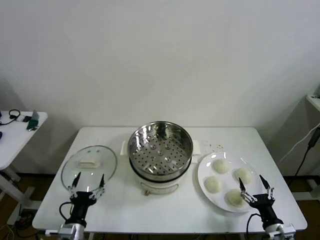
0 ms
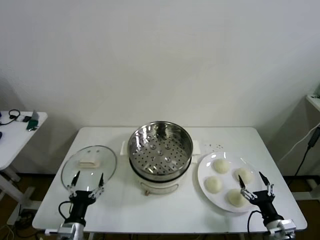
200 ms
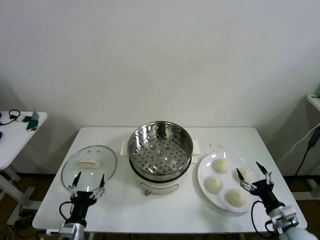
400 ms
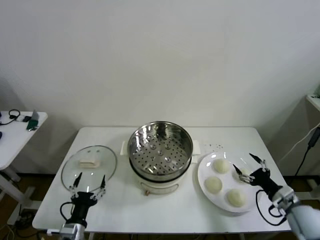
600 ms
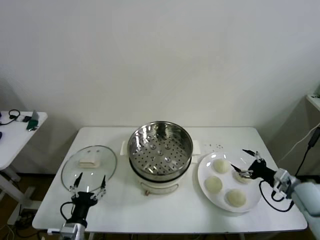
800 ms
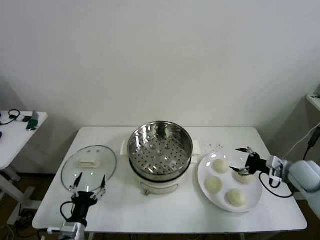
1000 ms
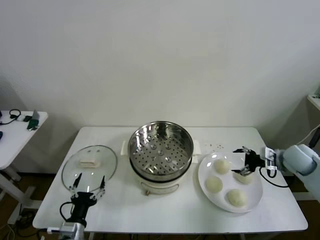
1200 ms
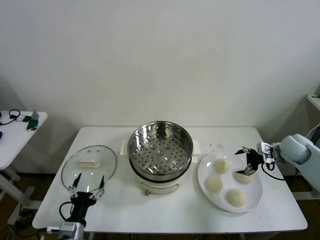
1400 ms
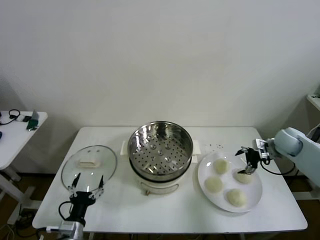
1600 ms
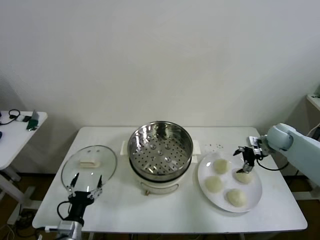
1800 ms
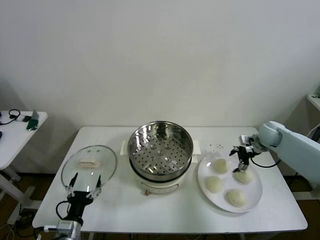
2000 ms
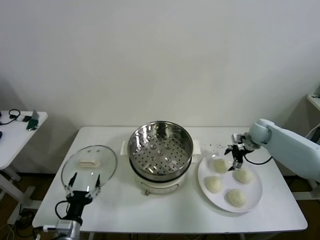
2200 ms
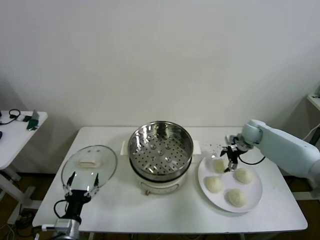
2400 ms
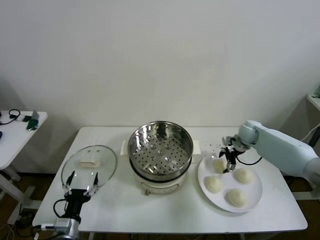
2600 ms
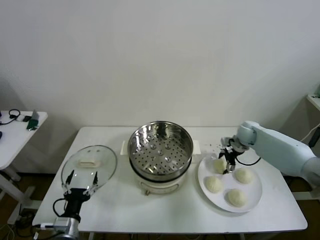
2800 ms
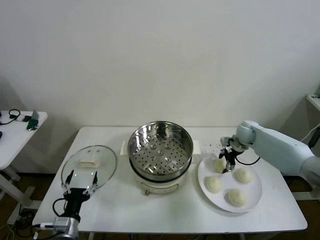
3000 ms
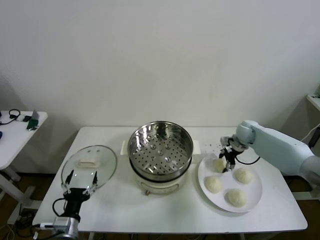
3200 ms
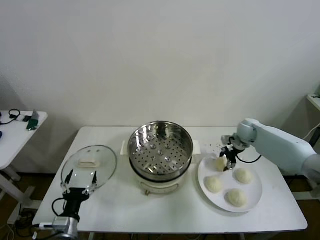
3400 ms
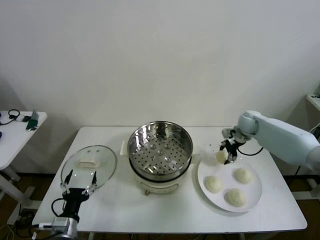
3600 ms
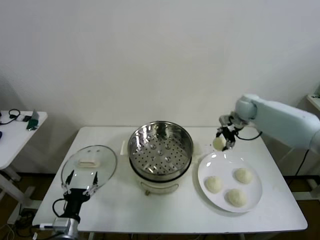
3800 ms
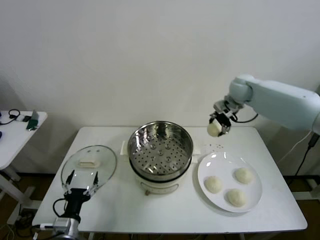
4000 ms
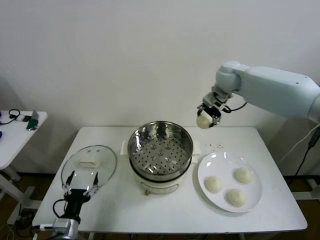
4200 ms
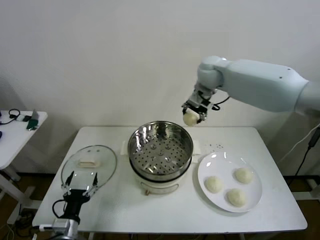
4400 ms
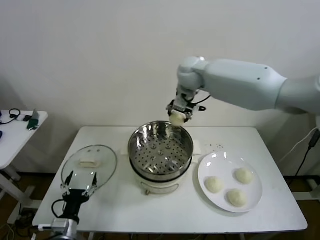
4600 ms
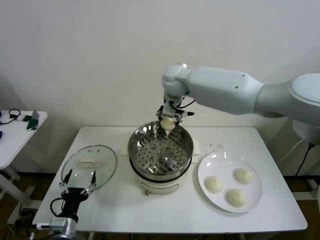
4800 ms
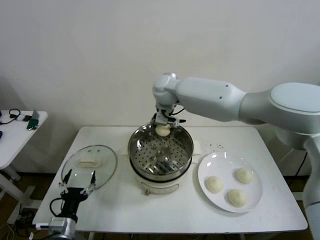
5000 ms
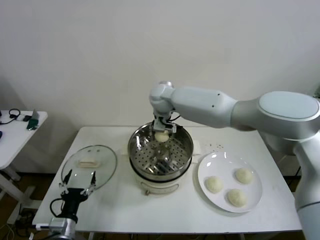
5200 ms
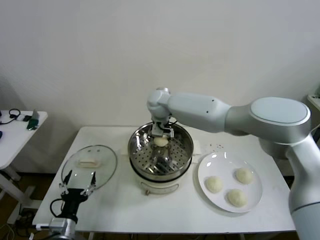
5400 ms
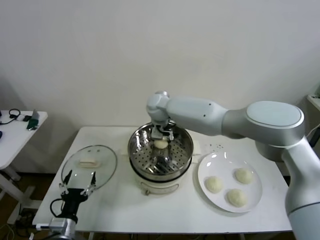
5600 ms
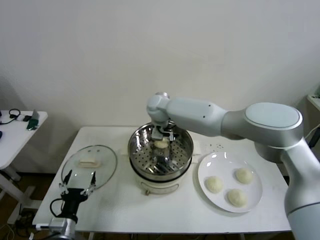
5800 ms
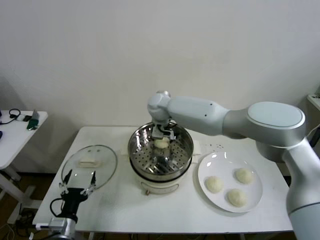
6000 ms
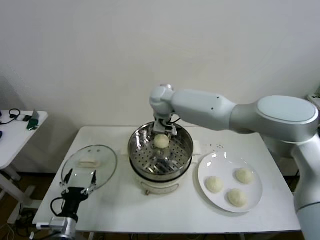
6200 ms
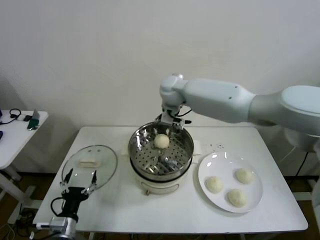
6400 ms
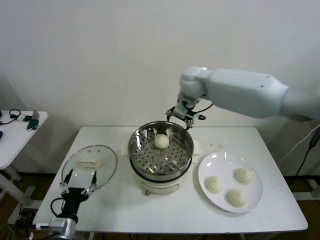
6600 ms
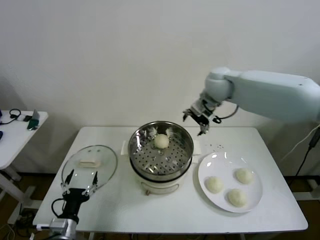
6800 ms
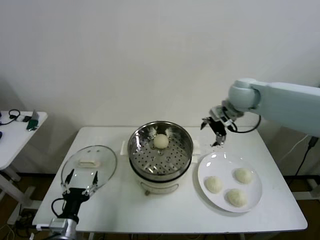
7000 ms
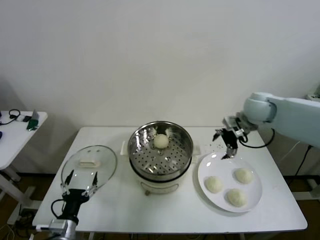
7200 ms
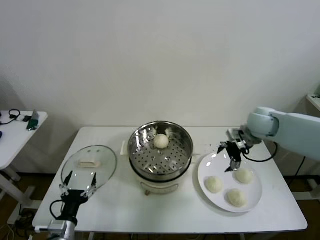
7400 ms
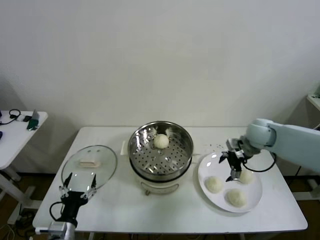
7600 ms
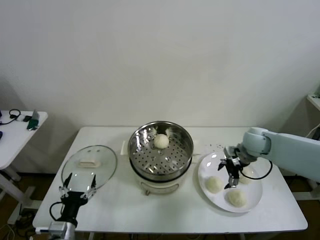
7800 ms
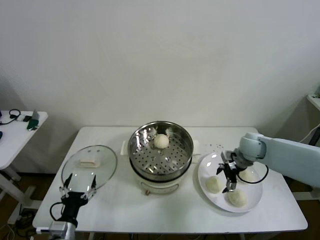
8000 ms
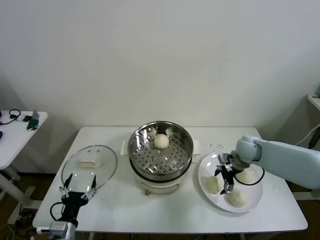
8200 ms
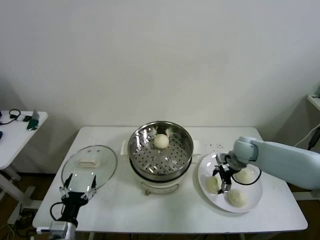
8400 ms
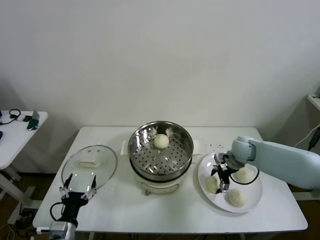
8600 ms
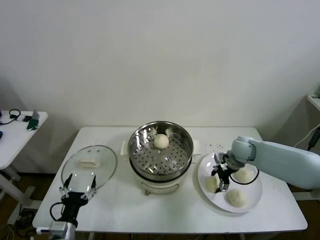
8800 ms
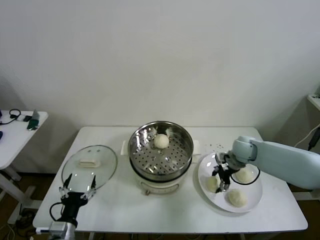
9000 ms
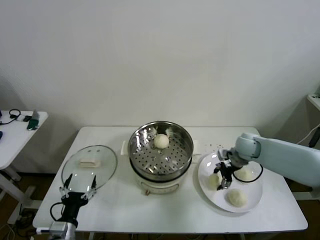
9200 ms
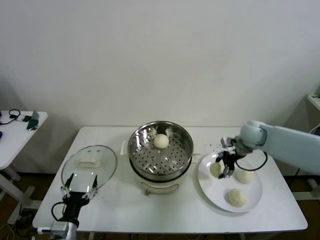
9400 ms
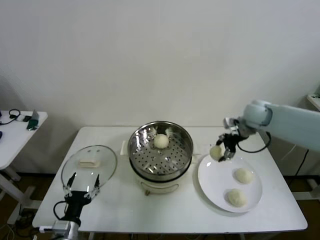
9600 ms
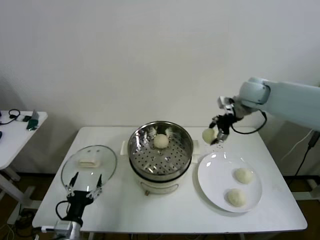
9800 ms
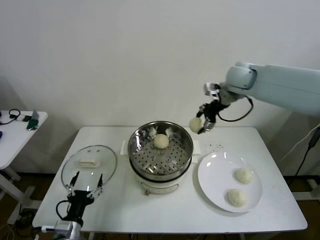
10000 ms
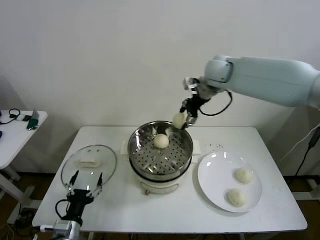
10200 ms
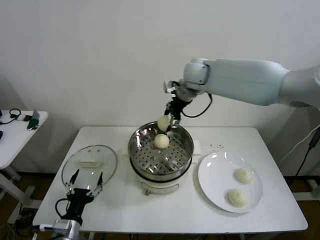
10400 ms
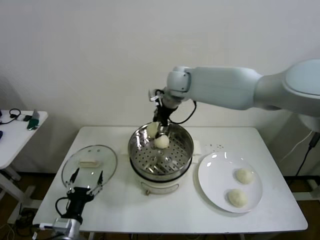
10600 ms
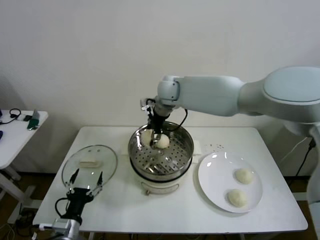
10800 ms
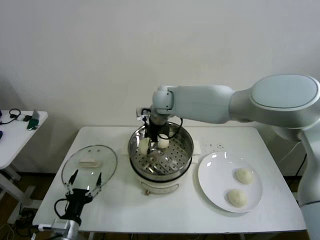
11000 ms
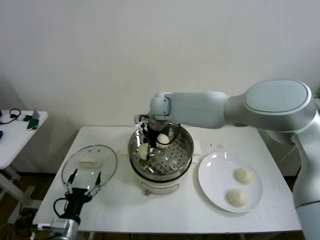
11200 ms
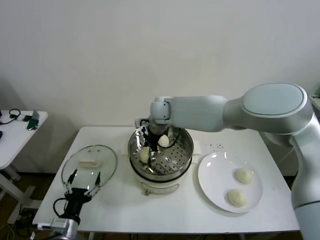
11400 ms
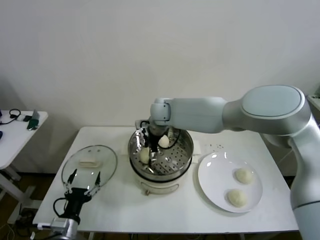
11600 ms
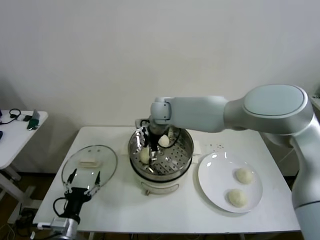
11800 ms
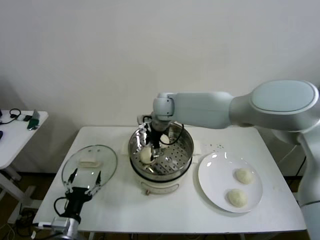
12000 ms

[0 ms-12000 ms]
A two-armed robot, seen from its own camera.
Step, 0 ms to 3000 ms: Grasp the baozi in the plate with right gripper.
Step, 3200 ms to 5800 ms: Place the baozi on the steamer with right gripper.
Step, 6200 ms to 8800 ms: Grasp the baozi in the plate with right gripper.
Step, 9000 ms to 12000 ms: Place the baozi on the steamer with right gripper.
1600 ms to 3000 ms: The right gripper moves to the left and forward, about 10 cm, and closes.
3000 ms to 4400 ms: The right gripper heads upward and to the left, covering about 35 cm.
4400 ms to 6000 ms: The right gripper shifts about 15 cm to the left and downward, and opens.
6000 ms to 7600 ms: The right gripper goes about 35 cm to the right.
7600 ms to 9000 ms: The right gripper is displaced downward by roughly 5 cm, and closes its fingers.
9000 ms to 10400 ms: The right gripper is displaced upward and to the left by about 35 cm.
10400 ms to 12000 ms: The right gripper travels downward and to the left by approximately 10 cm, and opens its fingers.

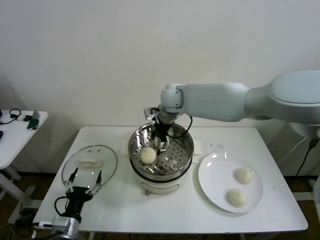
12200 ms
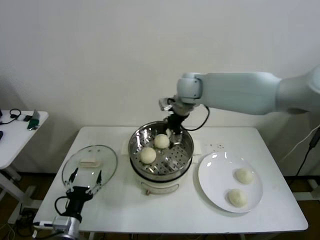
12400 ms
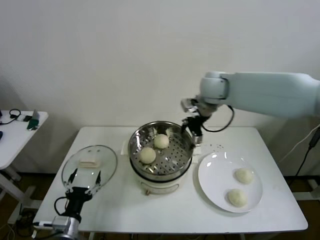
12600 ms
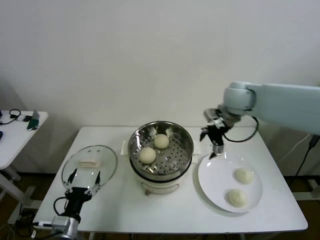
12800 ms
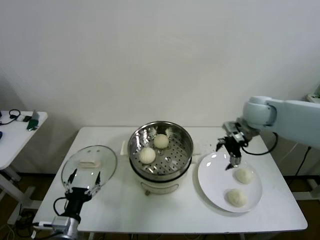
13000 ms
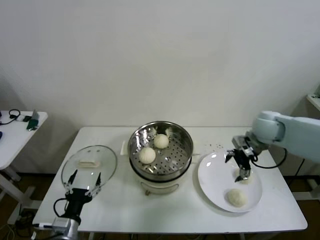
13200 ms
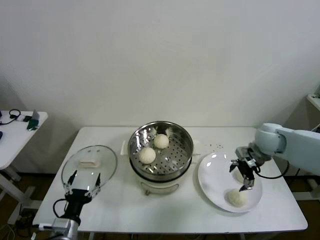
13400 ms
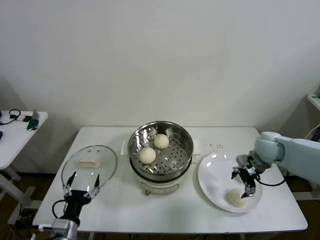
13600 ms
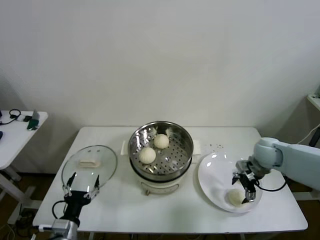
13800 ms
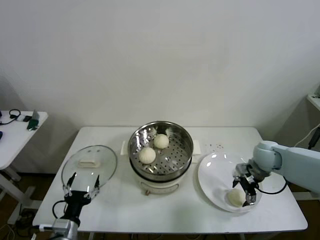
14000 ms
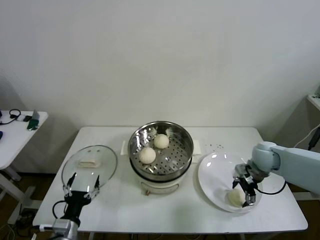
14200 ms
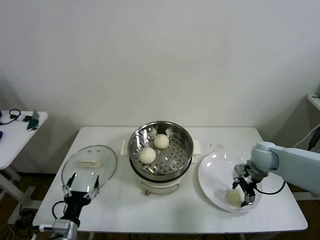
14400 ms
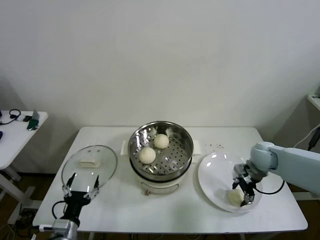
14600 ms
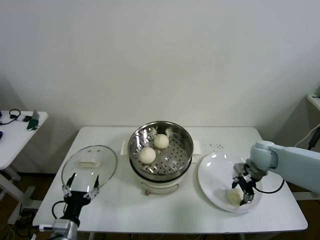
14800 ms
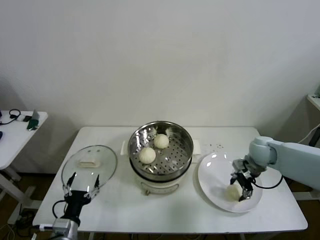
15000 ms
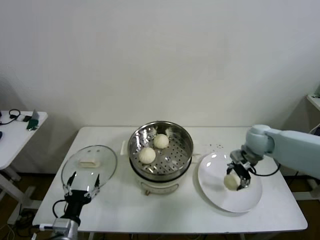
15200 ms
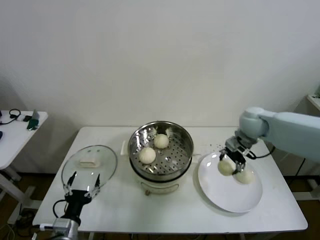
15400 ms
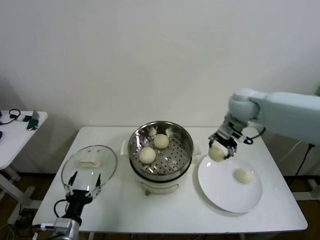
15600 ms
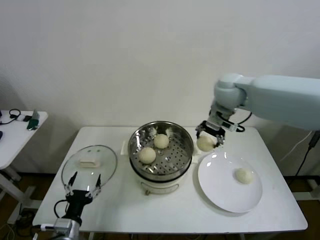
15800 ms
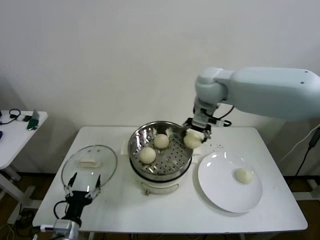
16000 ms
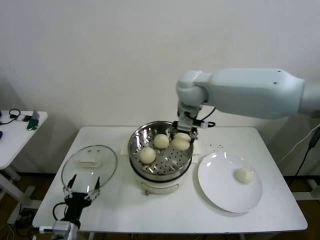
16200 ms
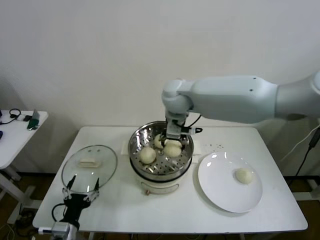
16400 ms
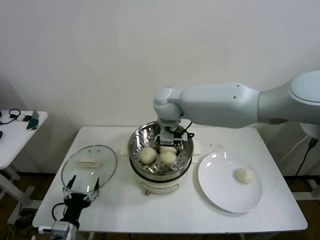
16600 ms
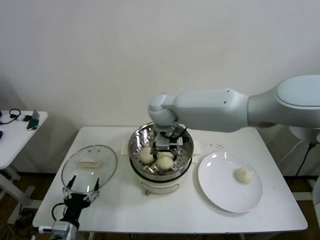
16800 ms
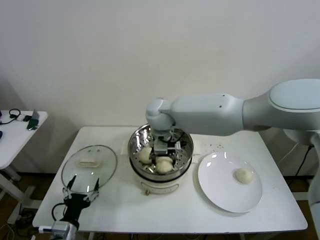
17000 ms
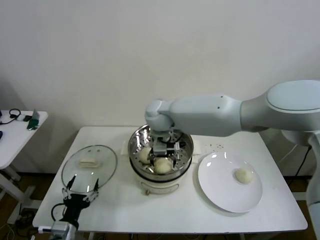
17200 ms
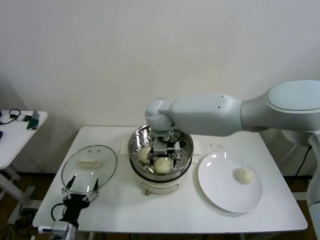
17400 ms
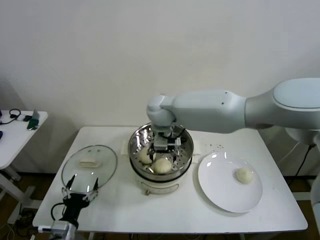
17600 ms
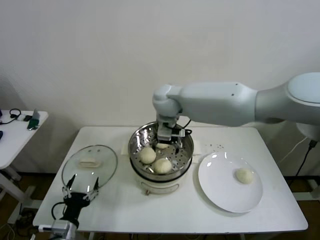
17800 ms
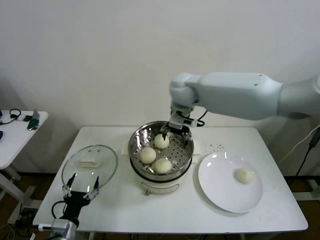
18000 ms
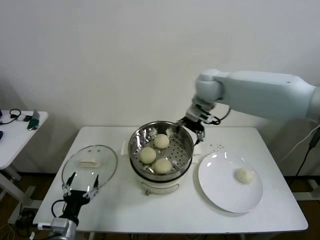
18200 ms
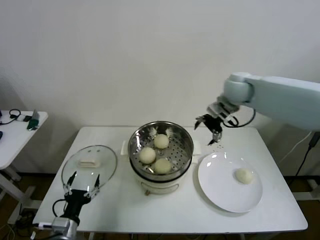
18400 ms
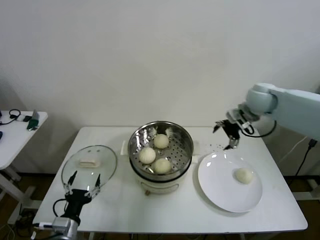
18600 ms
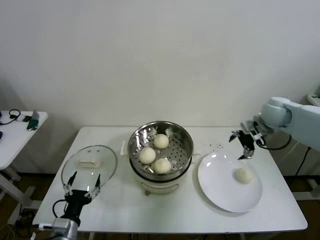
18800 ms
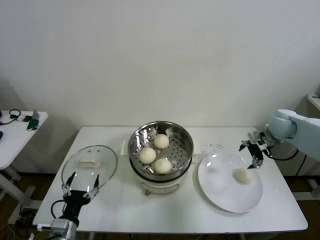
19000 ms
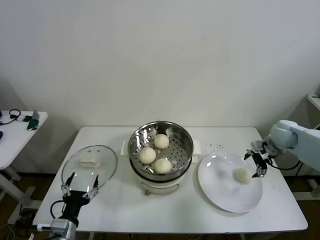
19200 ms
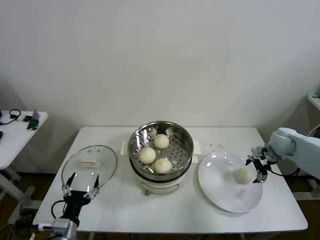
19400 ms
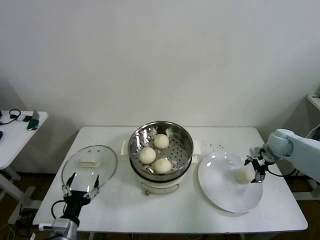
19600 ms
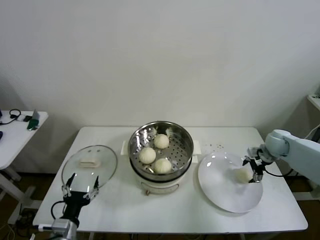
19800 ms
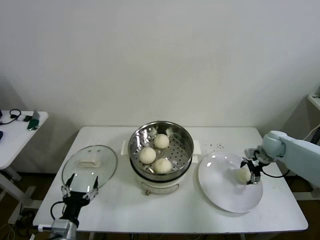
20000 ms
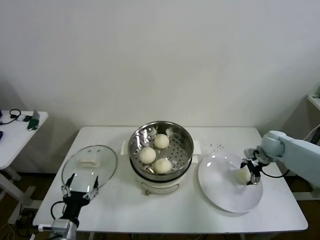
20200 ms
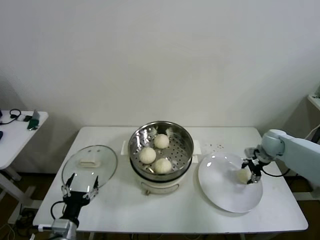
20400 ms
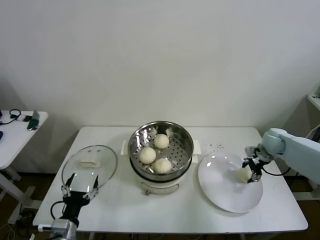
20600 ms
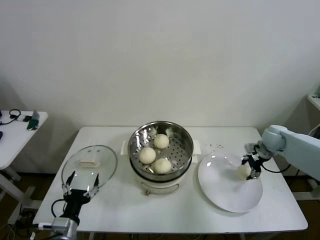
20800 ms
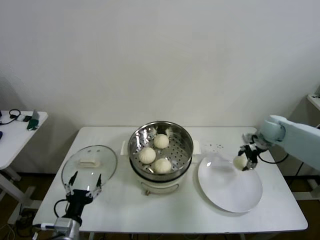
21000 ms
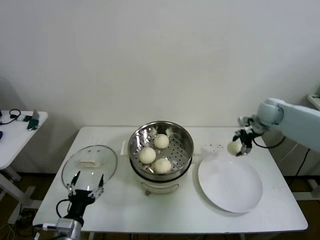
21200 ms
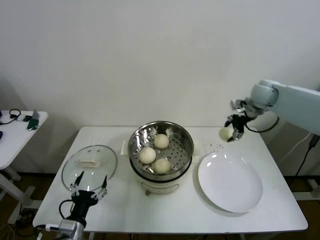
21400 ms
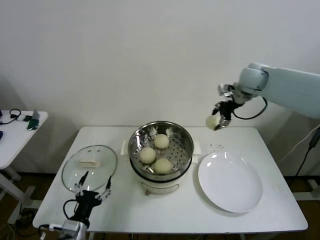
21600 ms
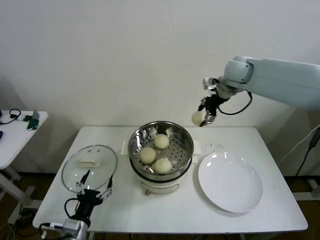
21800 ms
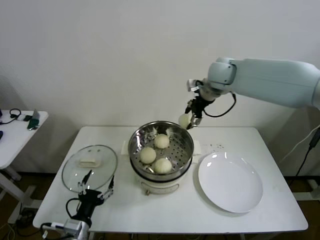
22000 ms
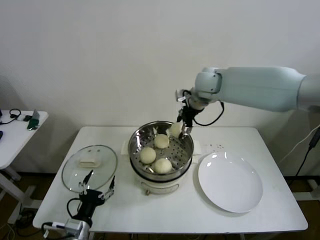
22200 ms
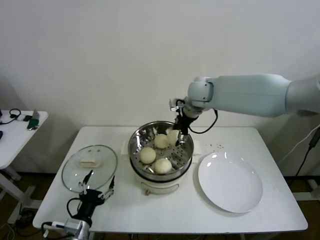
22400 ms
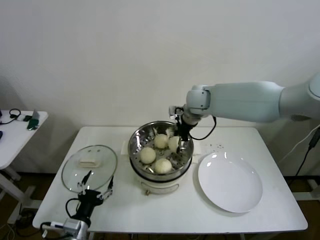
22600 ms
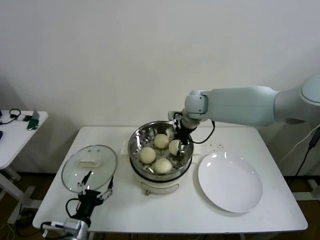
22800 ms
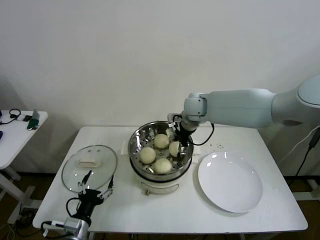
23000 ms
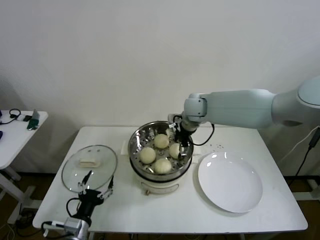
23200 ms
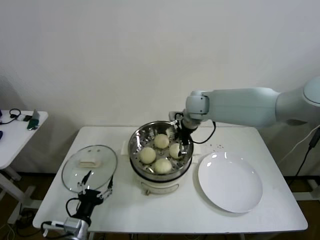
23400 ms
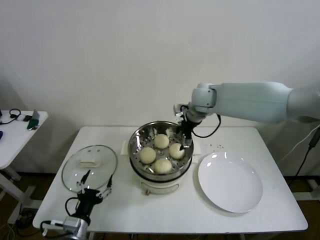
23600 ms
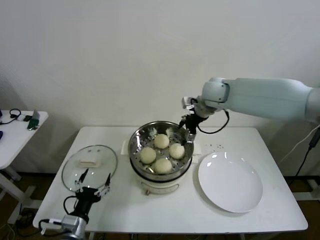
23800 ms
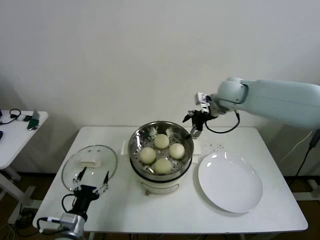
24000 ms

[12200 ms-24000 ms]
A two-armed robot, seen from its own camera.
Step, 12200 ms to 14800 ms: Grasp the baozi in the plate with right gripper.
Step, 15000 ms to 17200 ms: Place the baozi on the steamer with right gripper.
Step, 17400 ms to 20200 ms: Grasp the baozi in the plate with right gripper.
Step, 20600 ms to 23400 ms: Place the baozi on the steamer with right gripper.
12200 ms to 13600 ms: The right gripper shifts some 35 cm to the right and downward.
13600 ms to 15200 ms: The right gripper ends up roughly 5 cm from where it was, and closes.
15200 ms to 16600 ms: The right gripper moves to the left, some 30 cm.
16600 ms to 18200 ms: The right gripper goes some 15 cm to the right, and opens up.
18200 ms to 19600 ms: The right gripper heads to the right and downward, covering approximately 35 cm.
19600 ms to 21000 ms: The right gripper travels upward by about 5 cm, and closes.
21000 ms to 22600 ms: The right gripper goes roughly 30 cm to the left.
22600 ms to 24000 ms: The right gripper moves to the right, about 10 cm, and opens its fingers.
